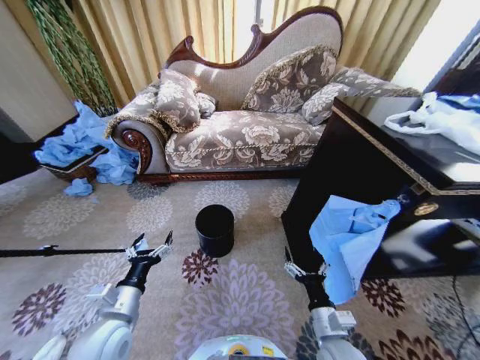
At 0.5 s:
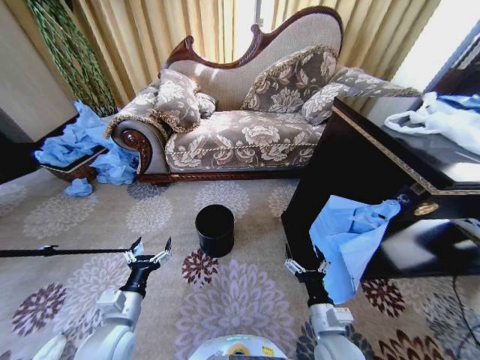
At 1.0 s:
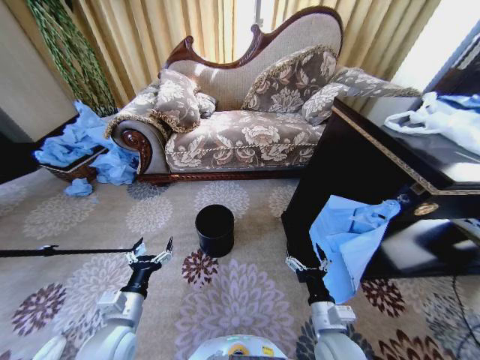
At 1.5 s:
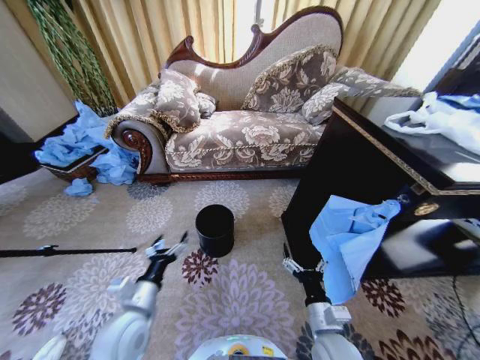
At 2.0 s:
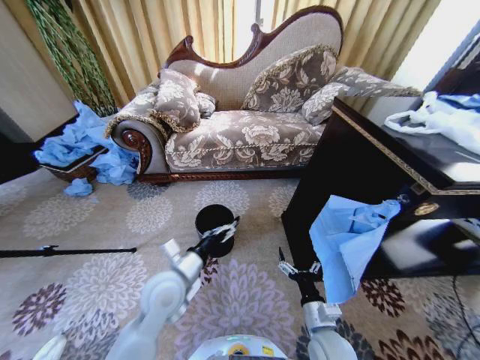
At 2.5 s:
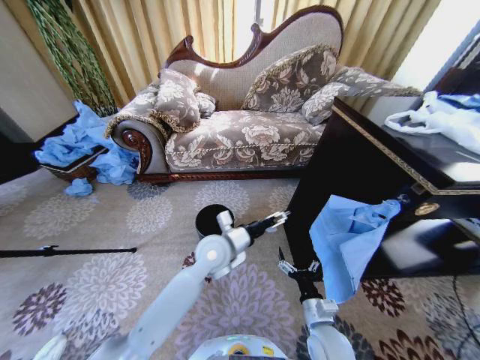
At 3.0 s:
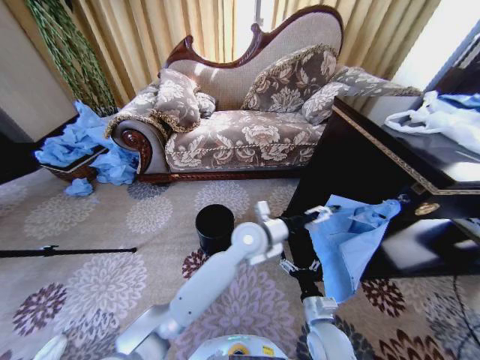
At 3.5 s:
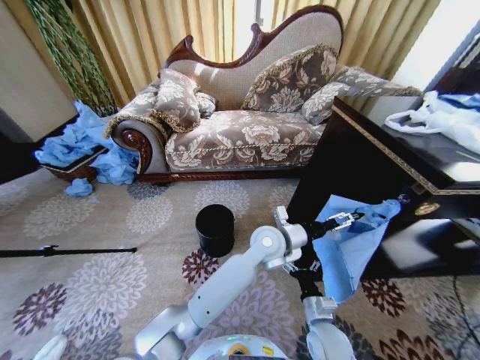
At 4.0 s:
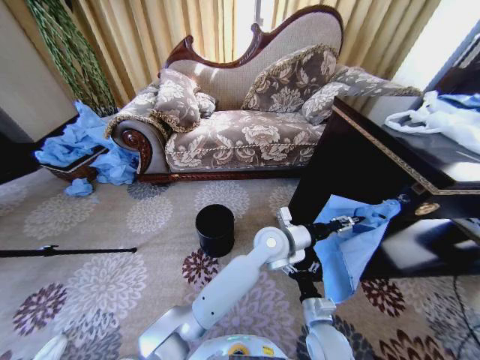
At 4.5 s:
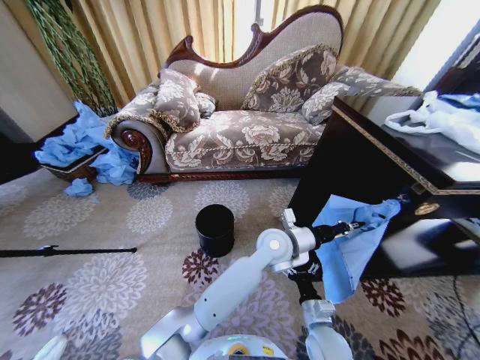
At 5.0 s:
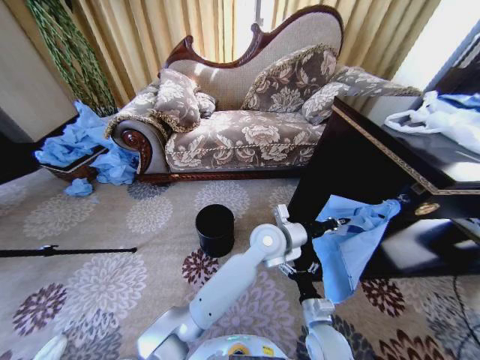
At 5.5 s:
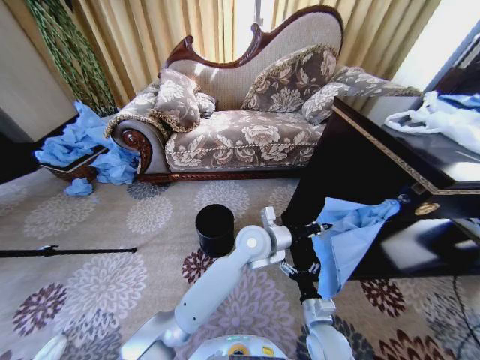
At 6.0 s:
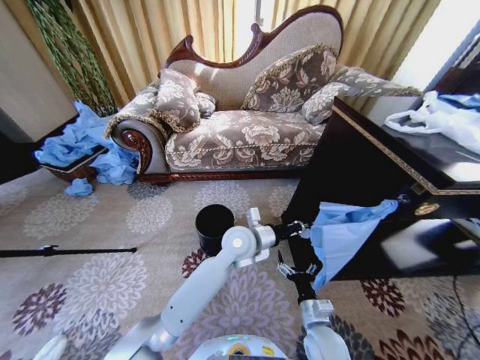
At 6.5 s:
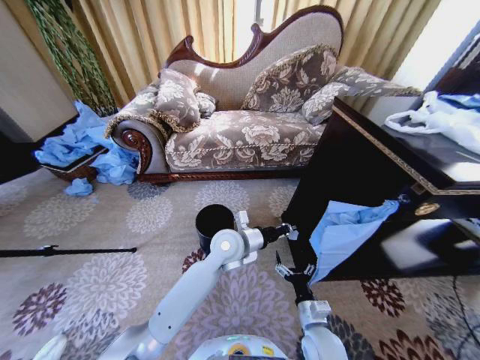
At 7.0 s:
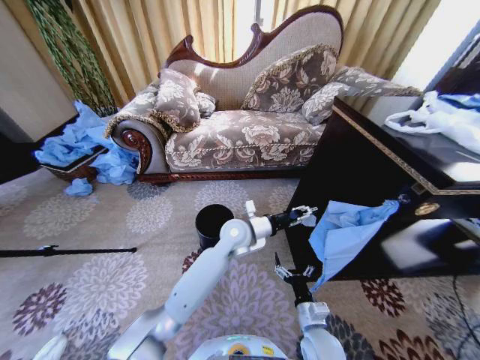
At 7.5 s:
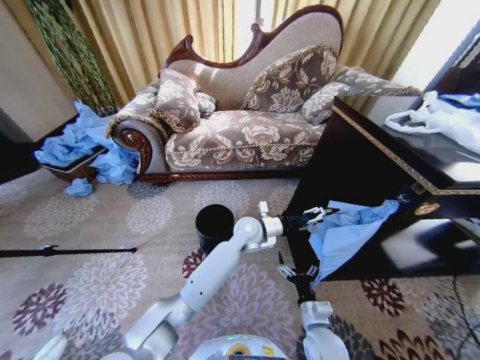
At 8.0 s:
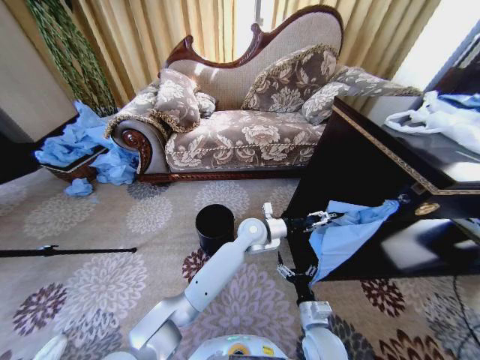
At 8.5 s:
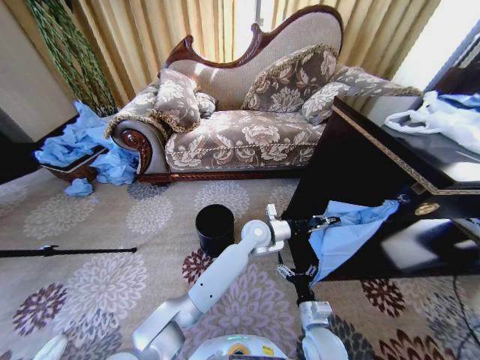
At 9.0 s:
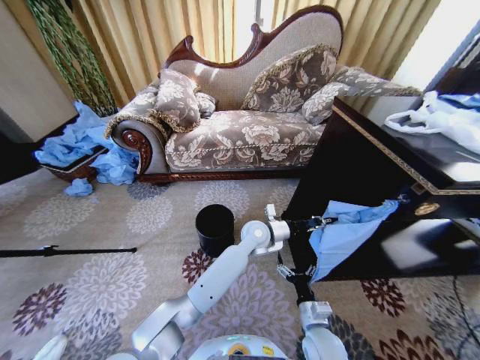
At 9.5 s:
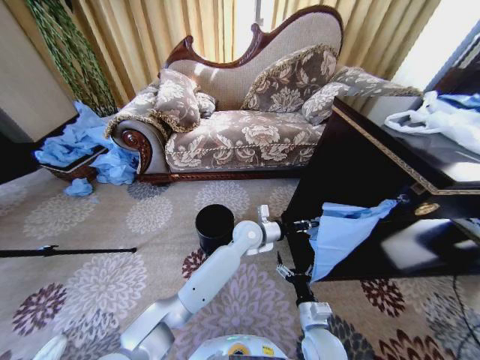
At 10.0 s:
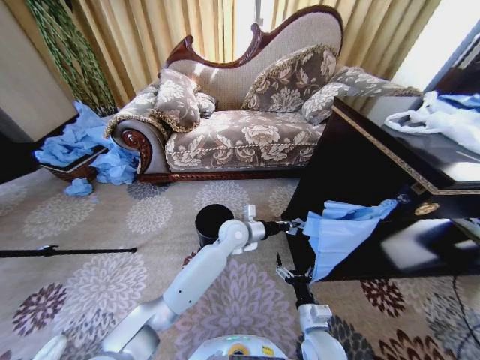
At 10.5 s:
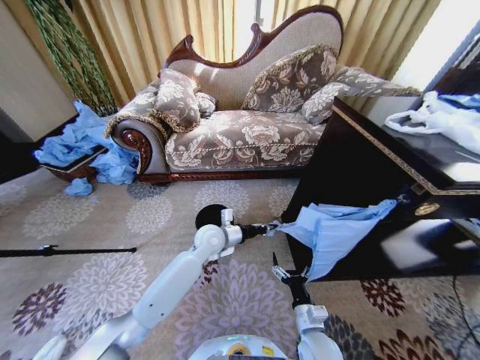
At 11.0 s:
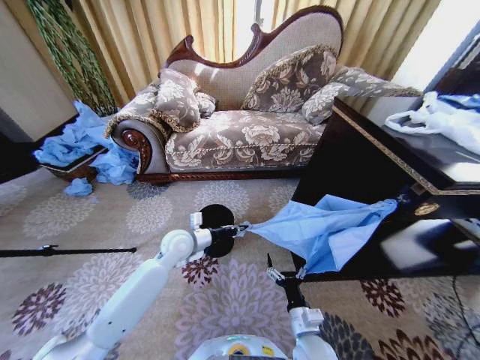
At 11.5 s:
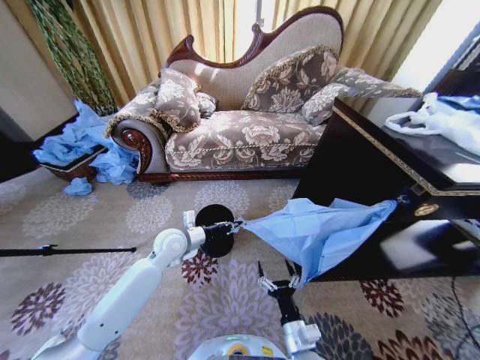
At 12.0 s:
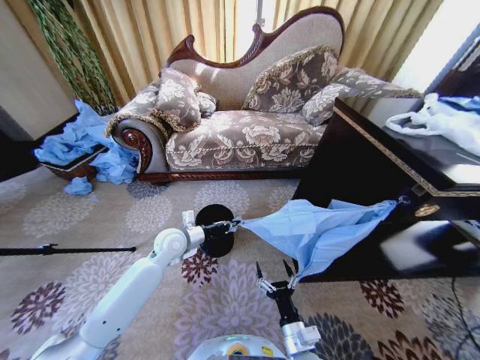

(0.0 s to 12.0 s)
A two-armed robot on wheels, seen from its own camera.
Task of the whole recording: Place a garbage bag over the trash bin.
2.0 s - 4.0 s: The left gripper heads to the right and forward, covering approximately 30 cm, and closes.
4.0 s - 6.0 s: The left gripper travels to the left by approximately 10 cm, and closes its fingers.
6.0 s - 8.0 s: The left gripper shifts roughly 5 cm forward, and opens up.
8.0 s - 10.0 s: The left gripper shifts roughly 5 cm to the left, and closes.
10.0 s - 12.0 s: The right gripper moves to the left, some 5 cm, while the left gripper travels to the left by roughly 20 cm.

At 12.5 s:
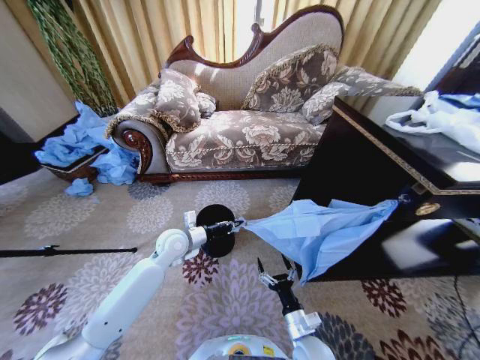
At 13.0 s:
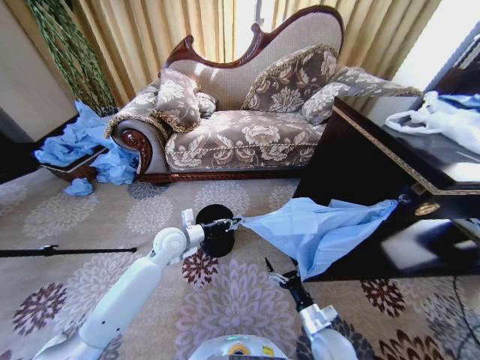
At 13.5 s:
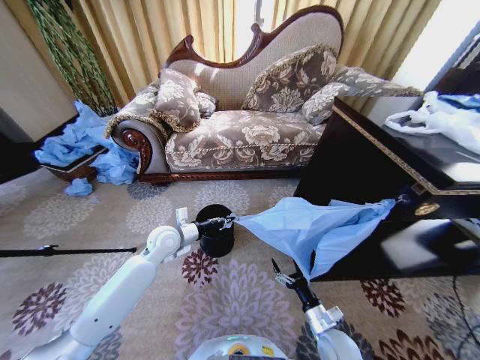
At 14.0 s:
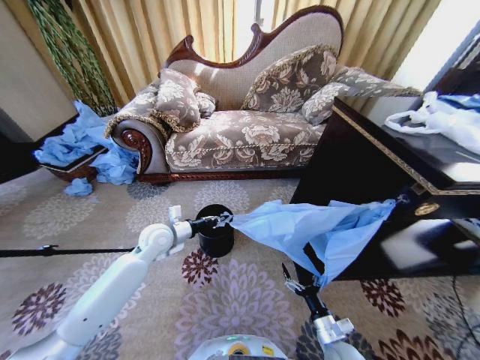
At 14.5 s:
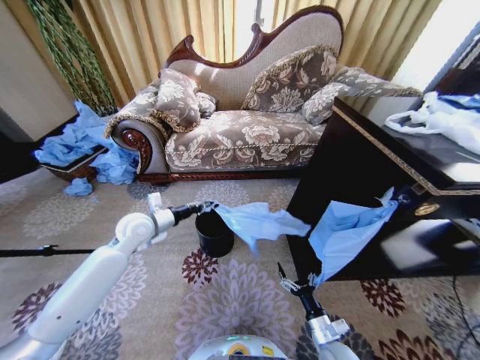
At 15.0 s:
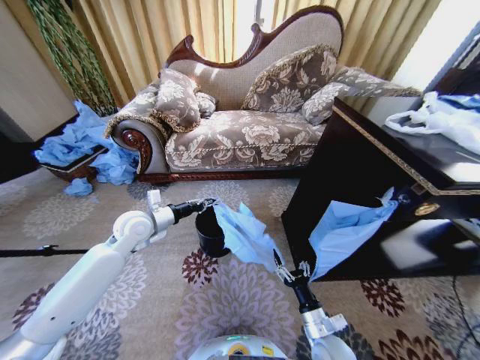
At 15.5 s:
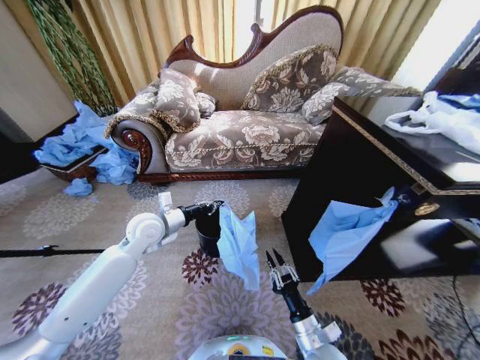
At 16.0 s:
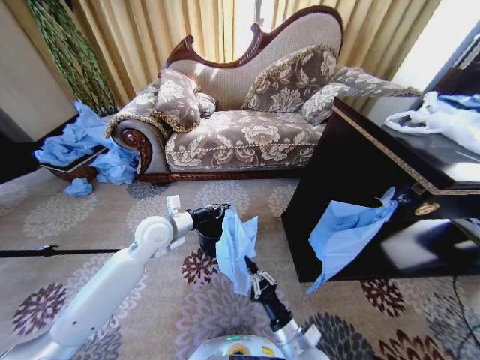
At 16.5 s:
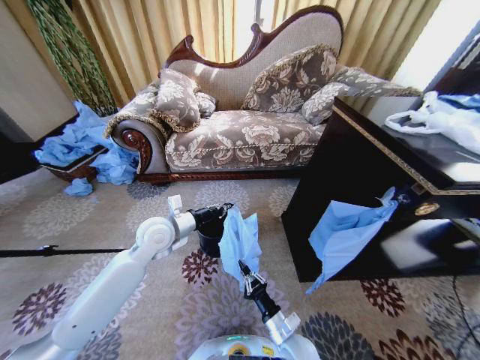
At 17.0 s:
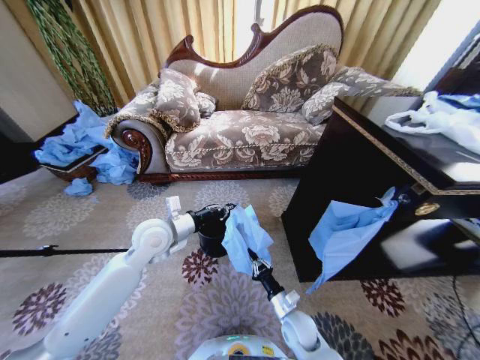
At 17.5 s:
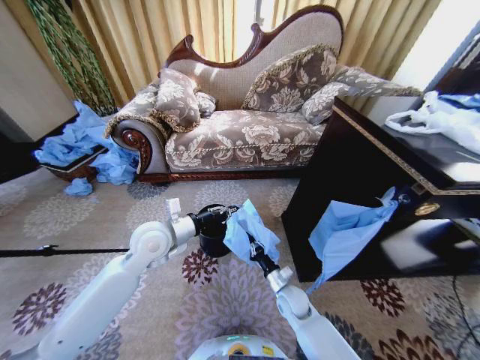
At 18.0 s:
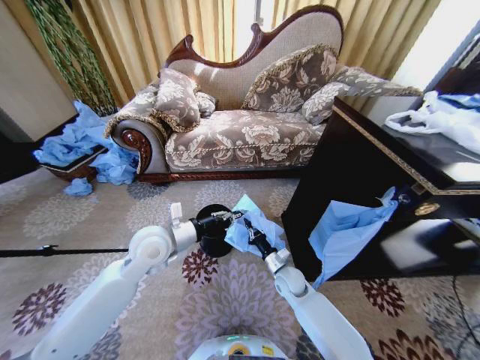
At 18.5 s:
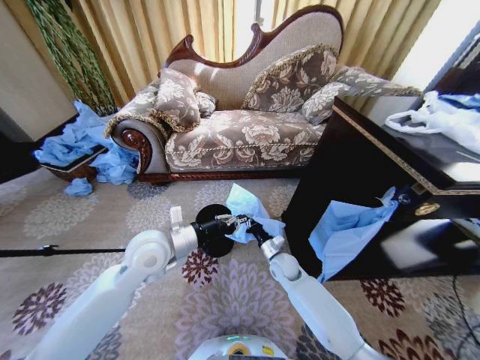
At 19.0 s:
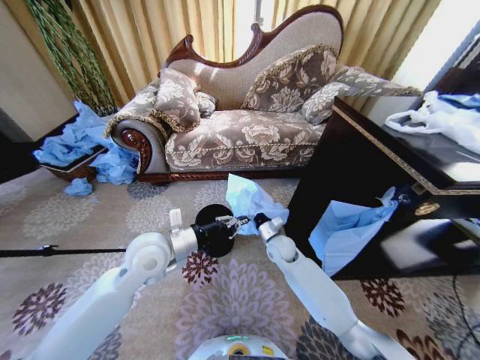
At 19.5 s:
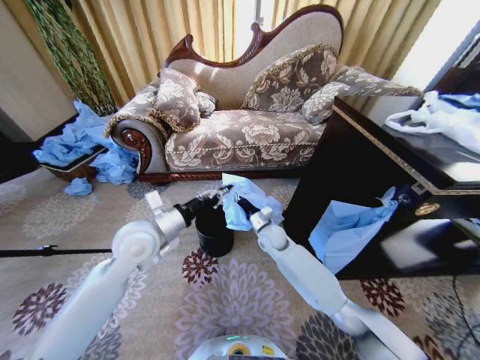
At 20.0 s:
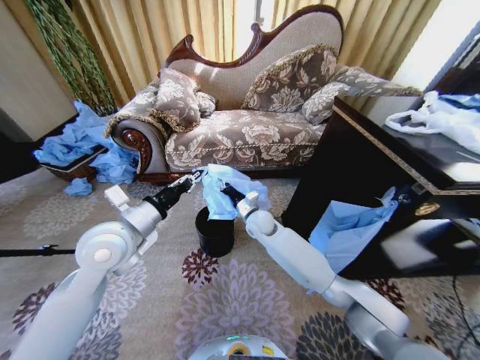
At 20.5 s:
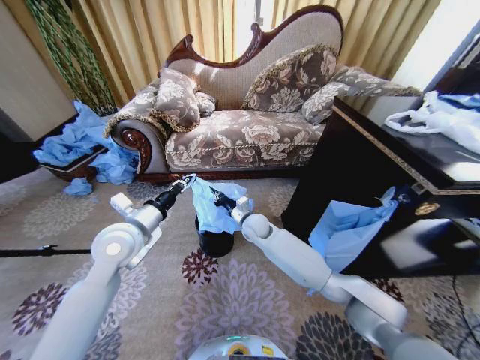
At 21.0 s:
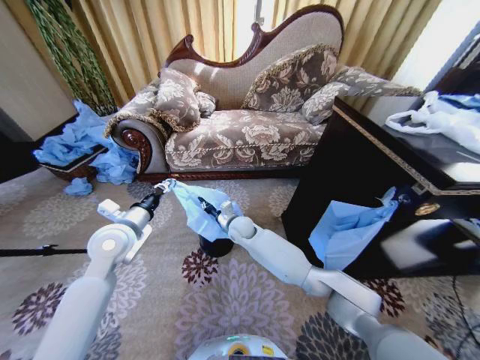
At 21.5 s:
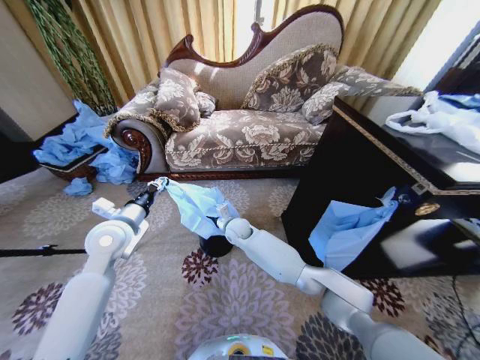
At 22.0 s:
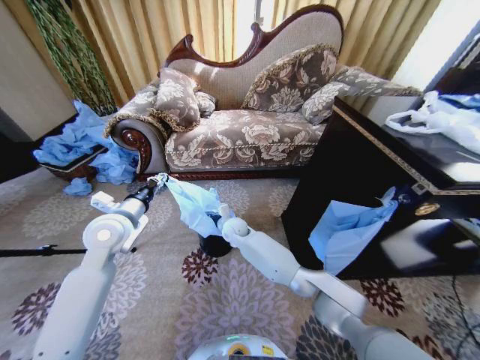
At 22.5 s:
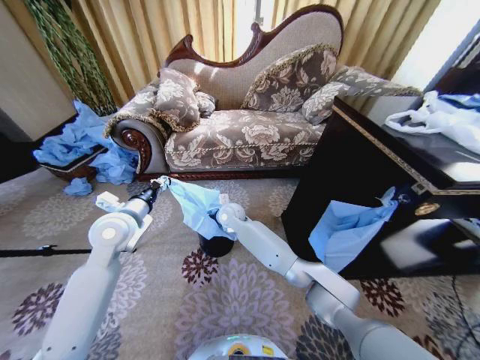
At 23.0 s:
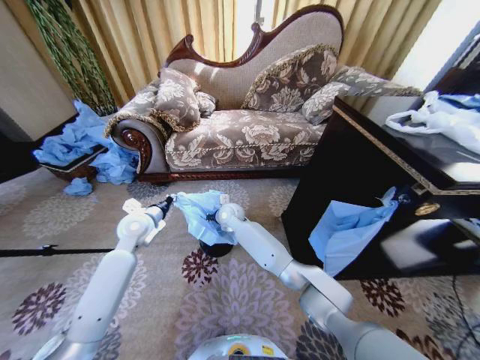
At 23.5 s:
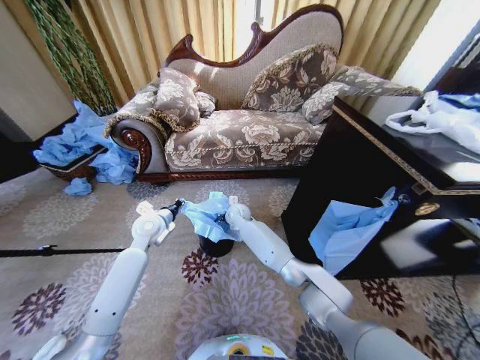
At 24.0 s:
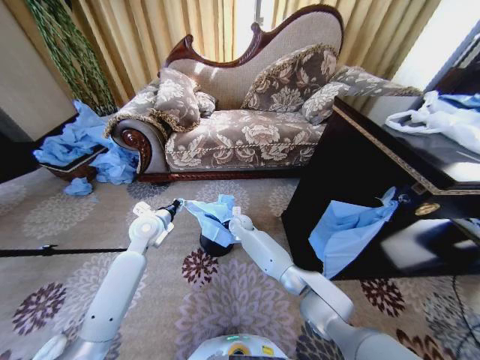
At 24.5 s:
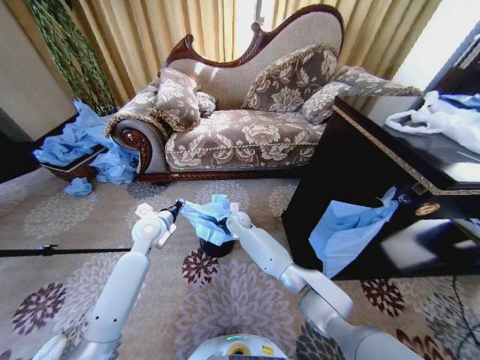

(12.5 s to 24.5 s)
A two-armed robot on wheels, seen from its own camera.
Task of the whole recording: Place a garbage bag over the trash bin.
12.5 s - 14.5 s: The right gripper goes roughly 10 cm to the right, while the left gripper moves to the left and upward, about 10 cm.
14.5 s - 16.5 s: The right gripper goes approximately 10 cm to the left, and closes up, while the left gripper shifts roughly 10 cm to the right.
16.5 s - 18.5 s: The right gripper shifts about 20 cm forward; the left gripper moves backward, roughly 5 cm.
18.5 s - 20.5 s: The left gripper shifts roughly 5 cm to the left; the right gripper heads upward, to the left and forward, covering roughly 20 cm.
20.5 s - 22.5 s: The right gripper heads to the left, covering approximately 10 cm.
22.5 s - 24.5 s: The right gripper travels downward by some 10 cm, while the left gripper goes some 10 cm downward and forward.

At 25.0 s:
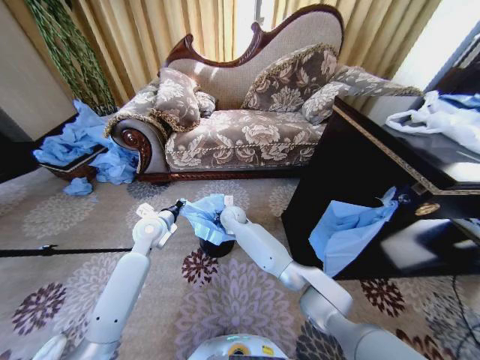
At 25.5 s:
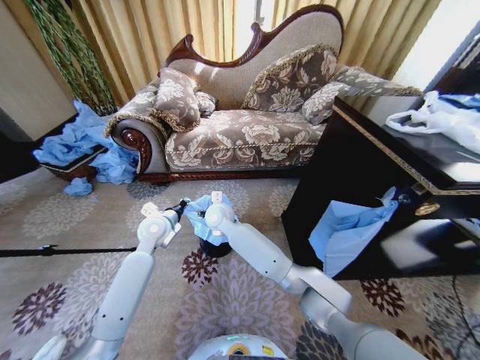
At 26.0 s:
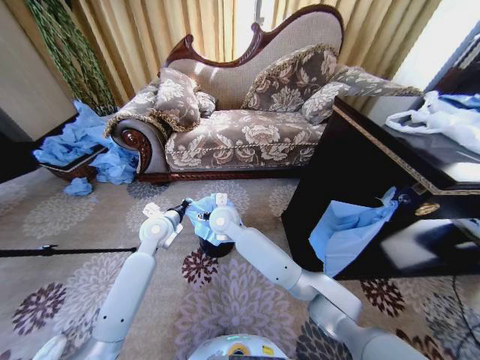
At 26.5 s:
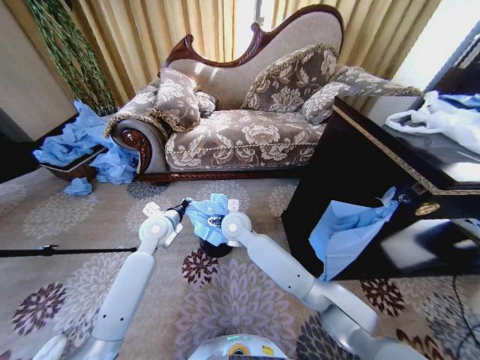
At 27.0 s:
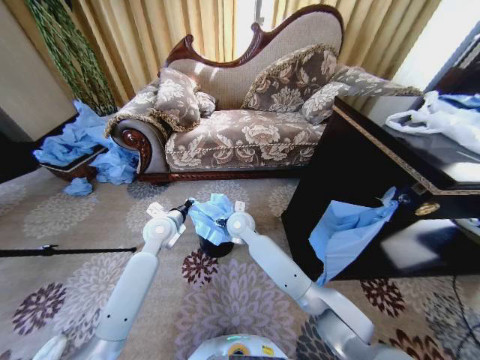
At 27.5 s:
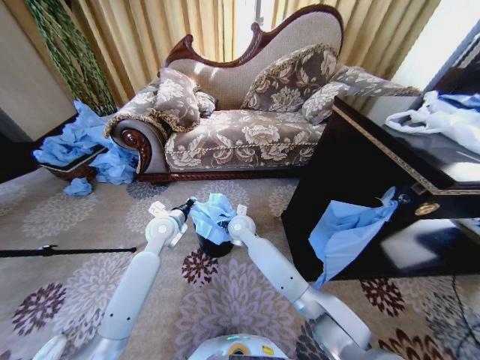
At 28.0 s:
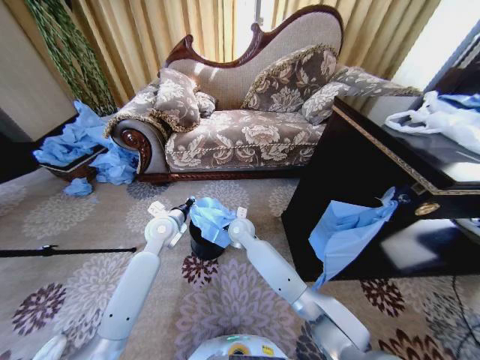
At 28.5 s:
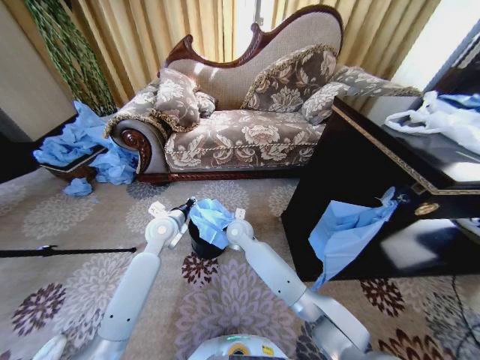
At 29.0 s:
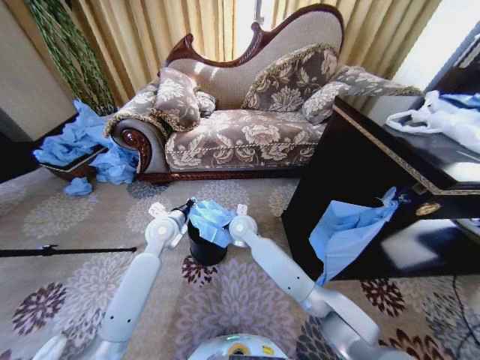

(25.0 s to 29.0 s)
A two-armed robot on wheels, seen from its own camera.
Task of the whole recording: Place a garbage bag over the trash bin.
25.0 s - 27.0 s: The right gripper moves backward, some 5 cm, and opens its fingers.
27.0 s - 29.0 s: The right gripper closes.
